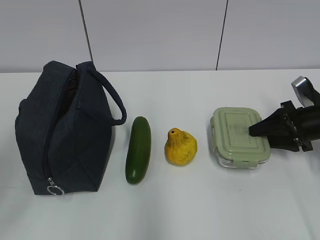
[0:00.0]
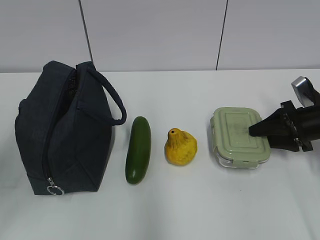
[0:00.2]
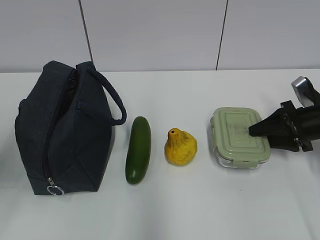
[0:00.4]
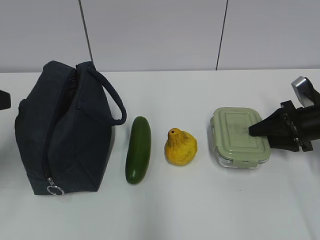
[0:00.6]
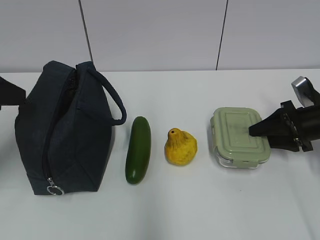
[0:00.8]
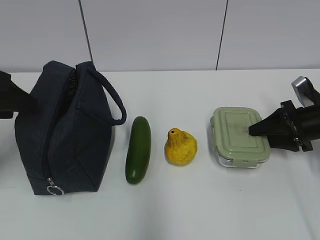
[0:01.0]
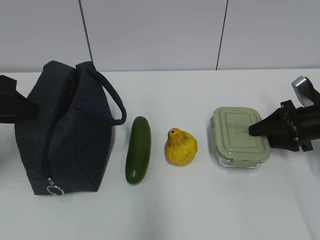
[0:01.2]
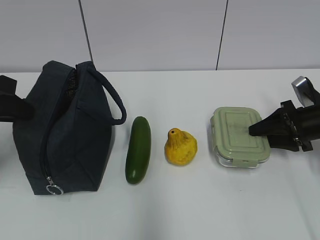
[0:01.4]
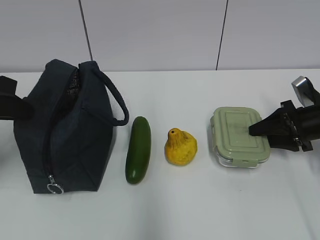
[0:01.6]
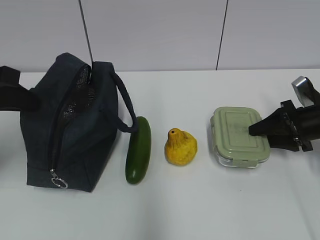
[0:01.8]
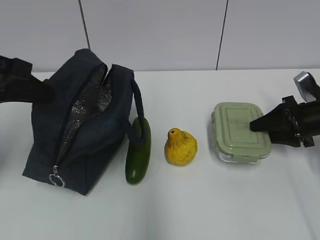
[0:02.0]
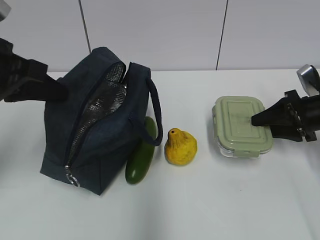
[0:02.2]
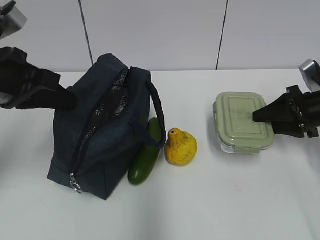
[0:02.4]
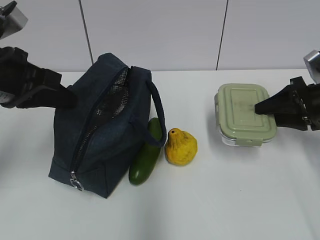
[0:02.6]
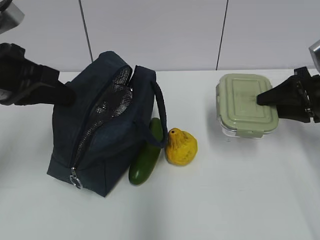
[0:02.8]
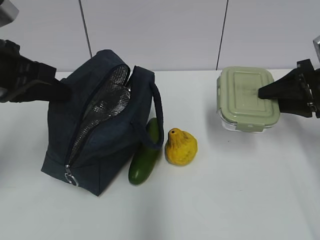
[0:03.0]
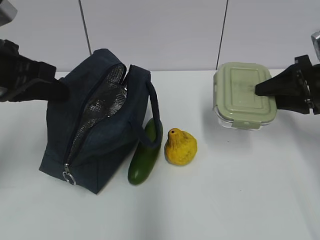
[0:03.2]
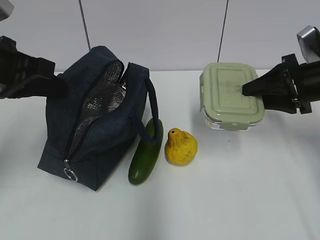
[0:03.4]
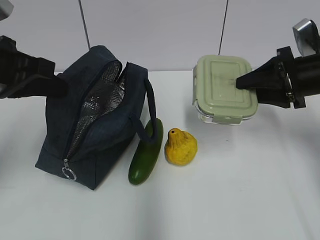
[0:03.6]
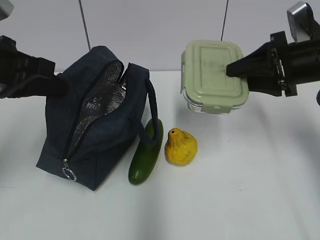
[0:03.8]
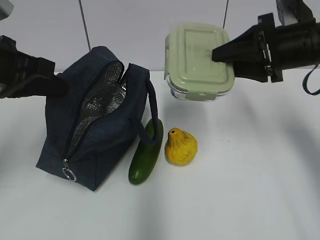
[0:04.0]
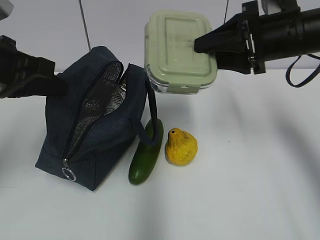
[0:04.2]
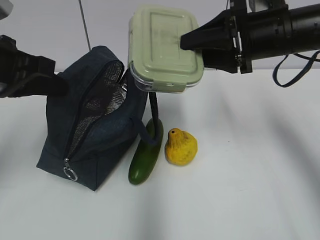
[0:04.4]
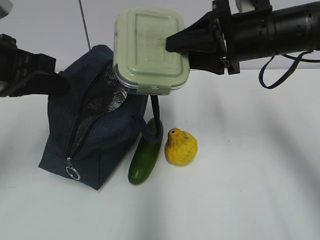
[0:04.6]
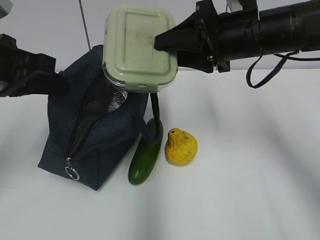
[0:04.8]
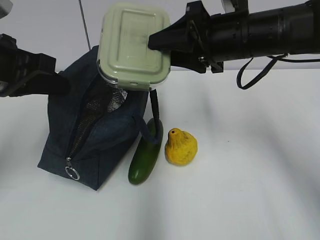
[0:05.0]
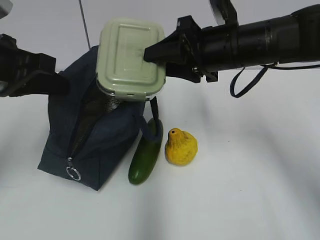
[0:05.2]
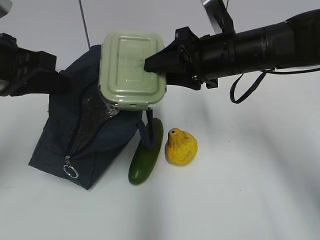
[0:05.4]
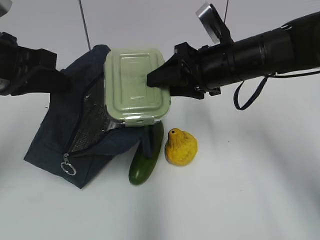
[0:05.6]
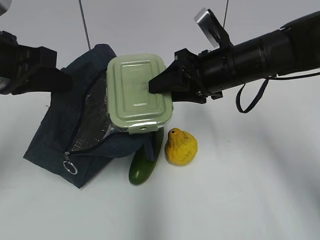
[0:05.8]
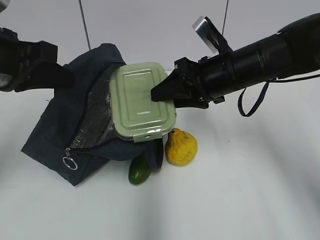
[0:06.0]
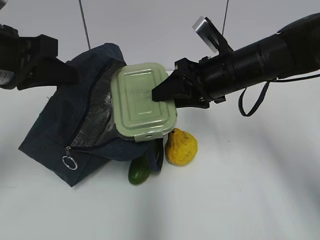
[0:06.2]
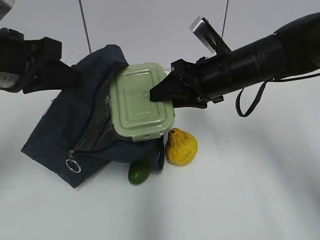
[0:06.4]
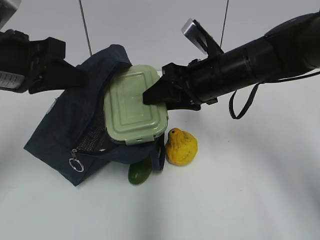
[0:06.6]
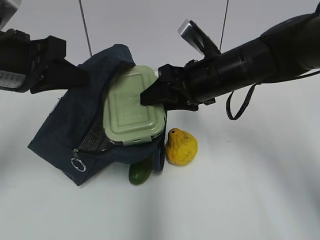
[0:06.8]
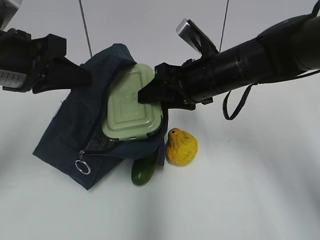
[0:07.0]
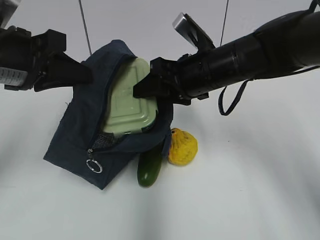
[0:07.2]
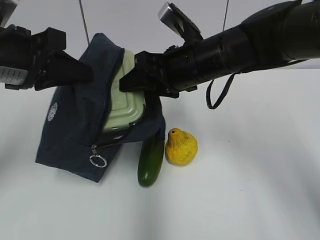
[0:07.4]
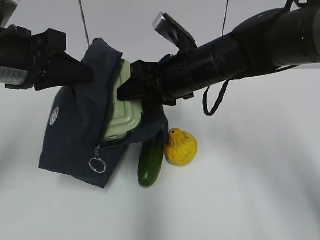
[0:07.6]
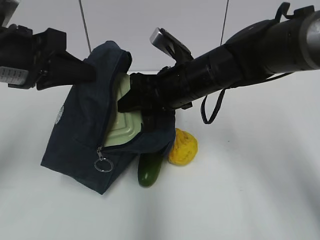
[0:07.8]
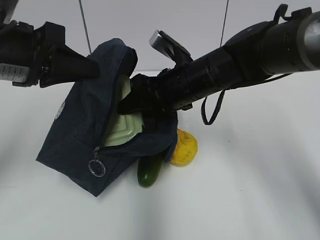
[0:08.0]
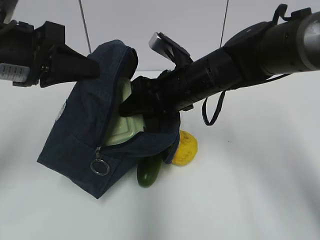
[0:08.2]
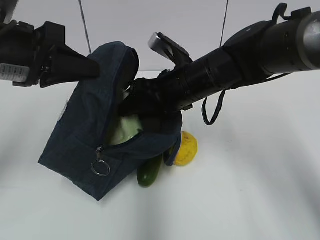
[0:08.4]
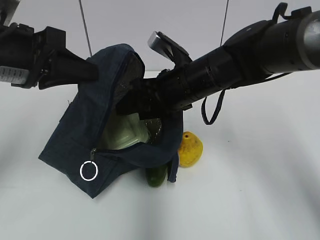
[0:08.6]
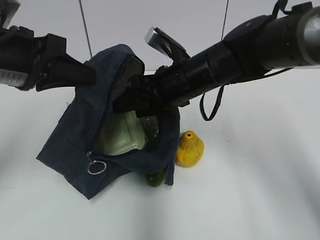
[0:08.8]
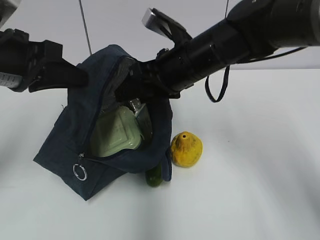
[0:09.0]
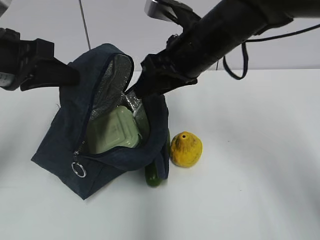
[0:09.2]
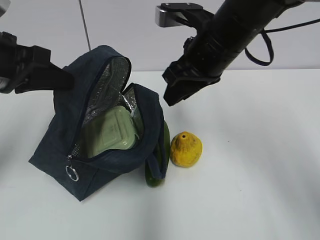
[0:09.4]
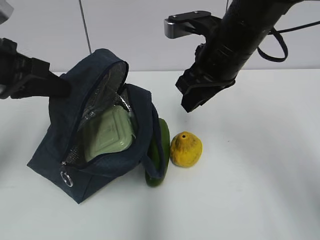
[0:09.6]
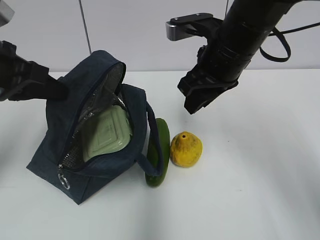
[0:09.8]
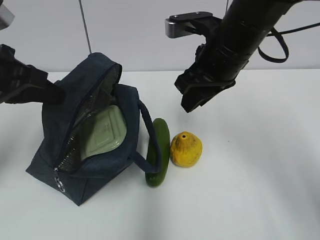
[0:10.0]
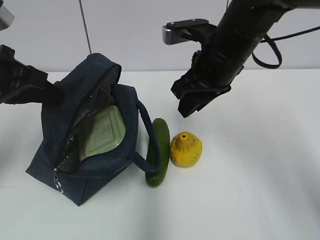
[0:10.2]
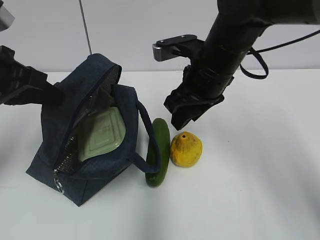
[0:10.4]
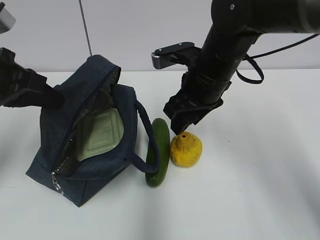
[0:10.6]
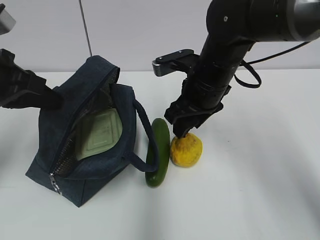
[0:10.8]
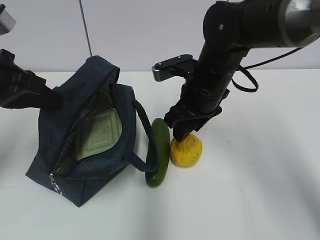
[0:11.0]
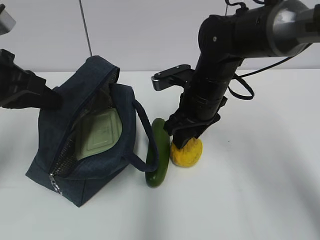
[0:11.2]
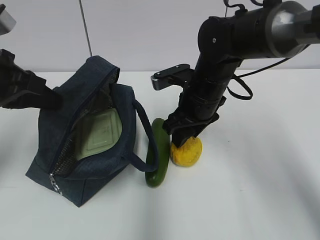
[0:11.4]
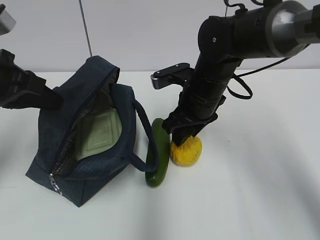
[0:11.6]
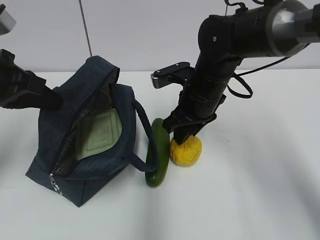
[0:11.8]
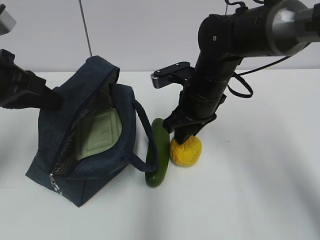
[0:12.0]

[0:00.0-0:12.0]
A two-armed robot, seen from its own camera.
0:00.0 to 0:01.6: The left gripper is displaced forward by some 15 cm, and closes its fingers.
0:01.6 to 0:03.0: The right gripper is displaced upward by approximately 10 cm. Meanwhile the left gripper shifts about 5 cm to the right.
0:03.0 to 0:04.4: The right gripper travels to the left and upward by about 15 cm.
0:04.4 to 0:06.0: The right gripper heads downward and to the left, covering about 10 cm.
0:06.0 to 0:07.6: The right gripper heads to the left, covering approximately 5 cm.
0:07.6 to 0:09.0: There are only small adjustments of the grippers.
0:10.4 to 0:12.0: The right gripper travels downward by some 5 cm.

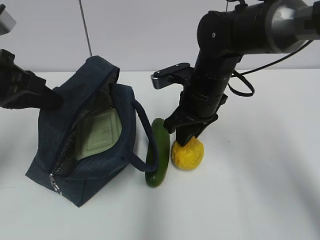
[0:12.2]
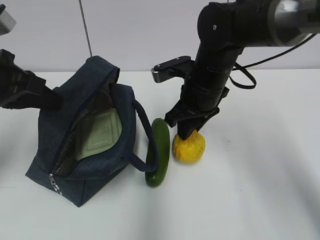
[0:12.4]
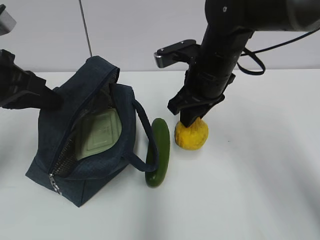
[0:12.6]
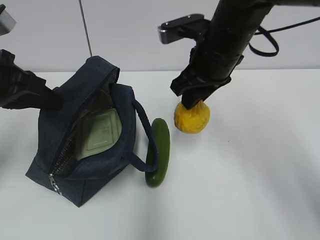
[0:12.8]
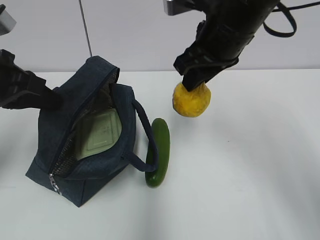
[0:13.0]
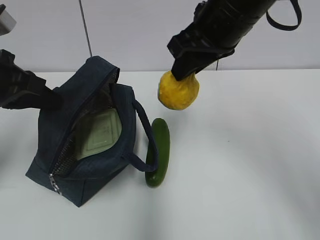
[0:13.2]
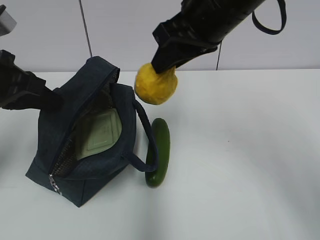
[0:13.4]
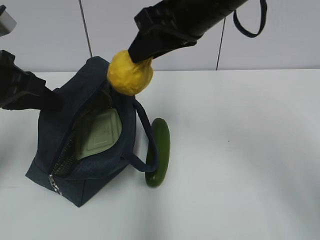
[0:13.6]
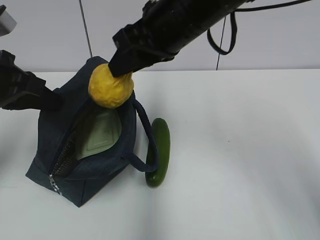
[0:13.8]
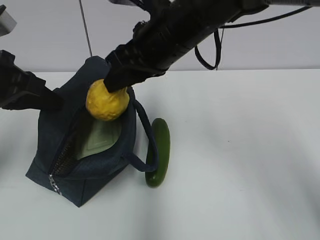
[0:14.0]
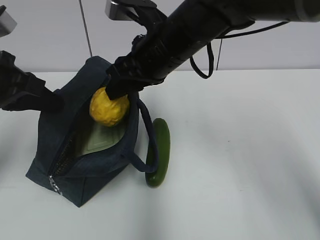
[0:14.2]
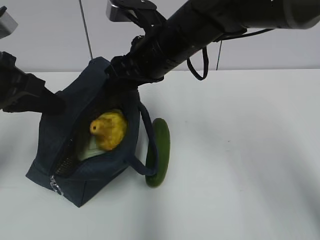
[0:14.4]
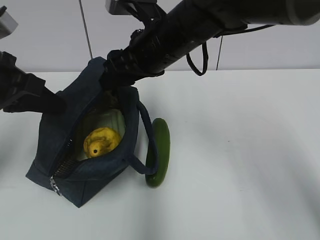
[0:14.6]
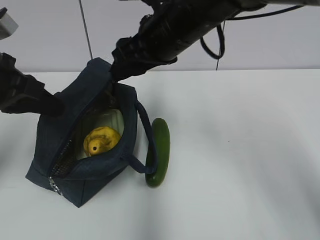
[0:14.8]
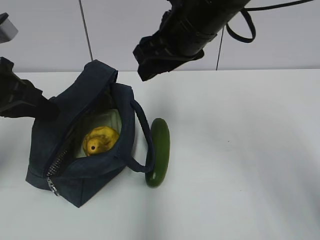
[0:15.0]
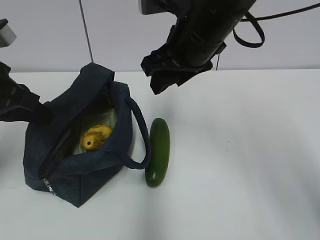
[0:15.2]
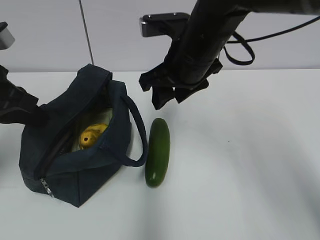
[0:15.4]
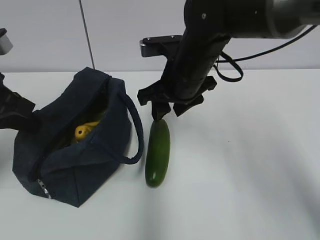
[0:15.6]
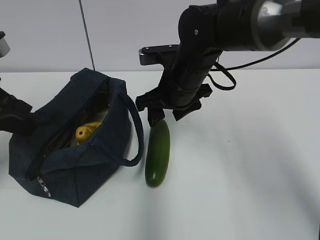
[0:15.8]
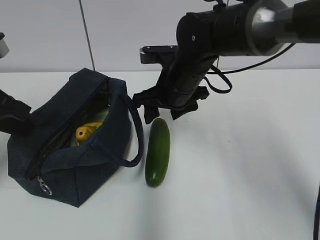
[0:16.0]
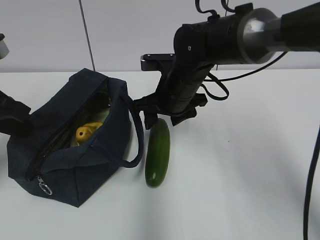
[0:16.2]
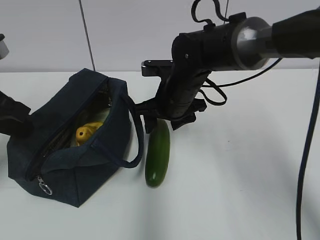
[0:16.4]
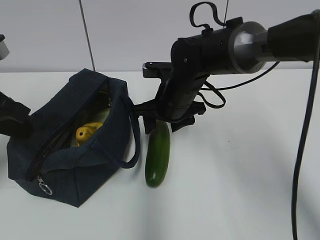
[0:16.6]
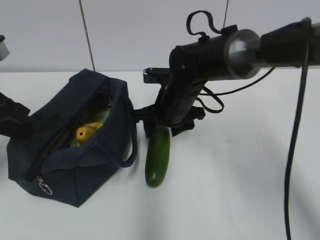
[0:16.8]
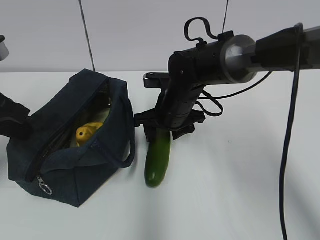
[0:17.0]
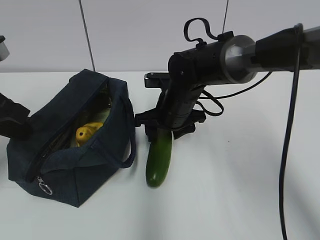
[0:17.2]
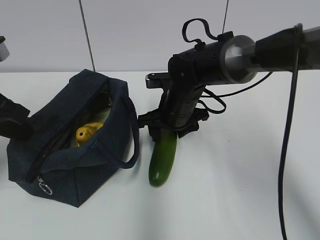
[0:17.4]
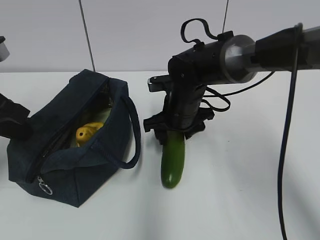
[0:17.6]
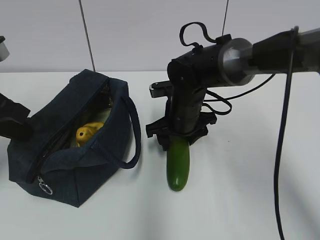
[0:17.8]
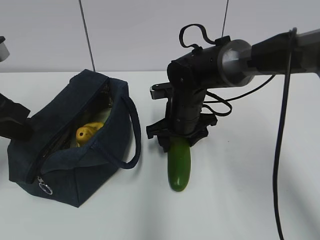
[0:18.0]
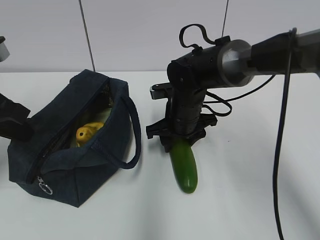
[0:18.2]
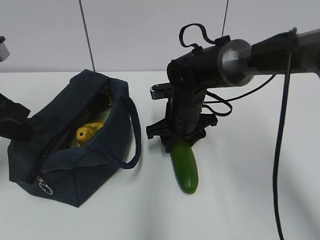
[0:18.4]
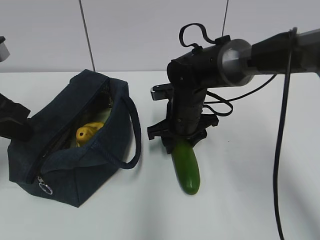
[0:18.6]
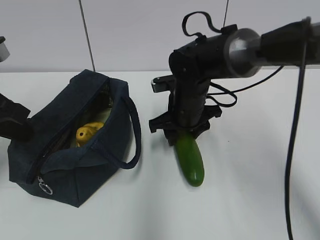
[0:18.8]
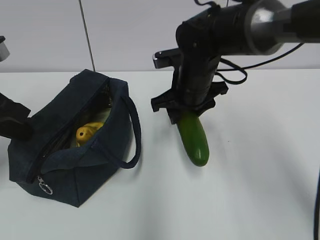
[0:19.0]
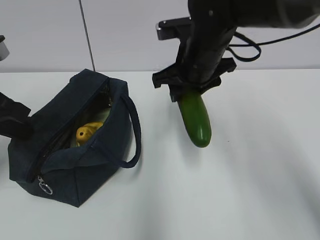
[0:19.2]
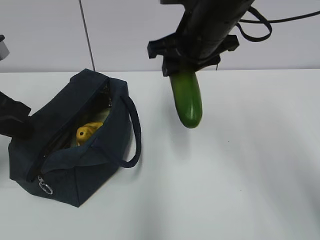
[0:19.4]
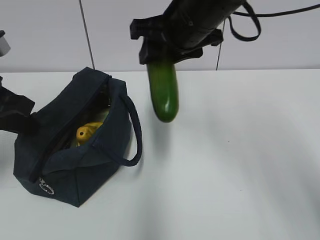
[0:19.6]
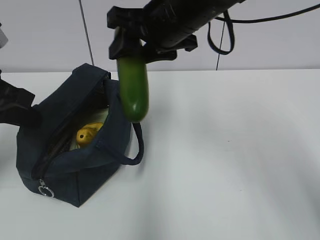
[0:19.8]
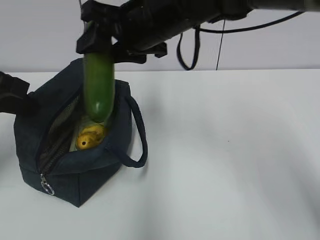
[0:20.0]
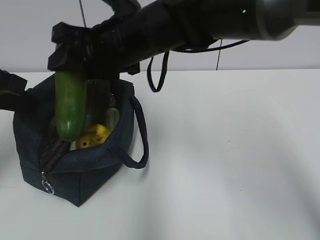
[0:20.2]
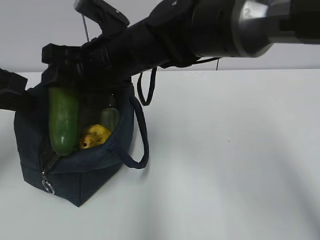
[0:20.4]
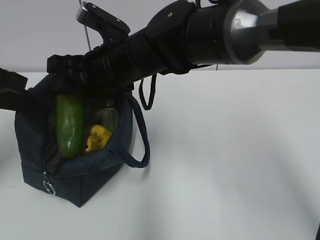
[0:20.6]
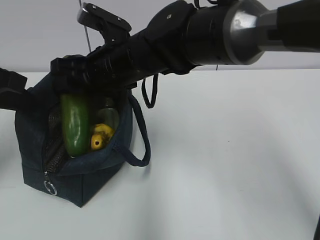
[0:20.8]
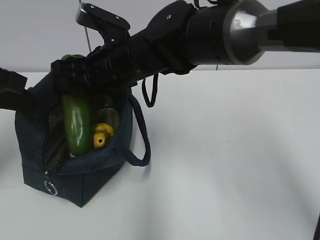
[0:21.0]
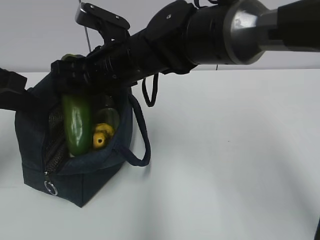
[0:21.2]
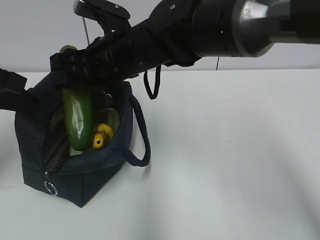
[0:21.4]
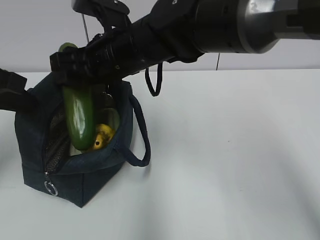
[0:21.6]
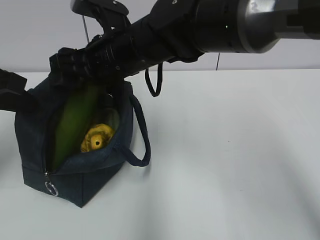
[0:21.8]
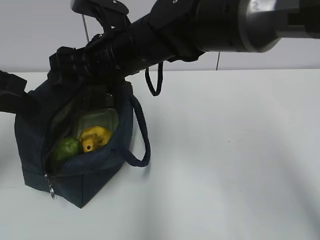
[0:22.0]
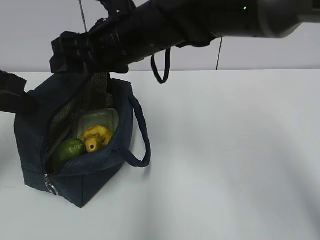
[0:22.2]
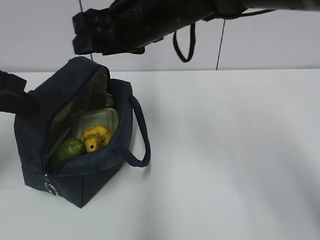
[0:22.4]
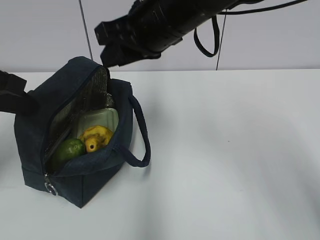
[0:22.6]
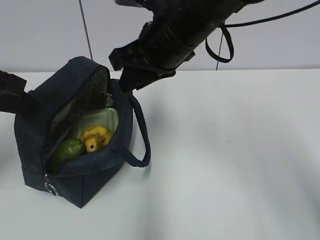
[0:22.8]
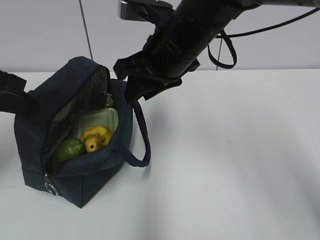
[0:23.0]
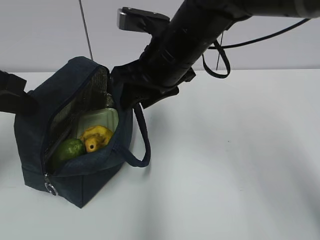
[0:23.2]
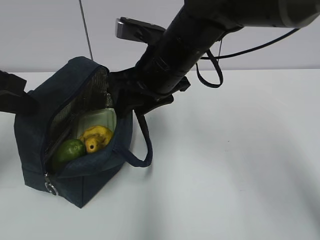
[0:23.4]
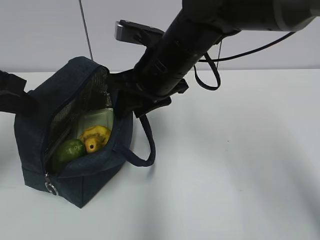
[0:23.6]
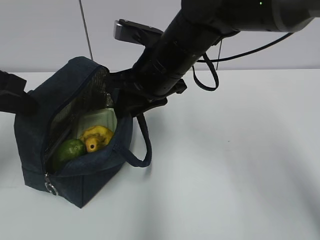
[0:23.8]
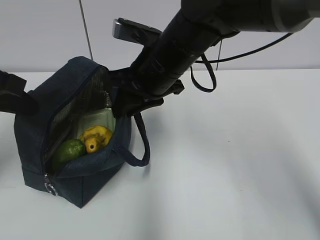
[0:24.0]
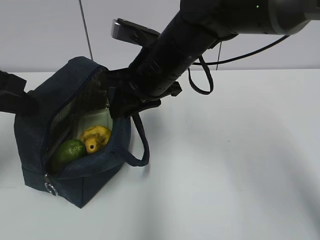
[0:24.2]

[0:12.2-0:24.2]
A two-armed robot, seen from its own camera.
0:12.2 to 0:13.8: The right gripper goes approximately 15 cm upward.
0:15.2 to 0:16.6: The right gripper shifts approximately 15 cm downward.
0:16.6 to 0:18.2: The grippers make only small movements.
0:18.2 to 0:19.8: The right gripper moves upward, roughly 20 cm.
0:19.8 to 0:21.2: The right gripper shifts approximately 10 cm to the left and downward.
0:21.2 to 0:22.6: The right gripper travels to the right and upward by some 10 cm, and closes up.
0:22.6 to 0:24.2: The right gripper heads downward, covering roughly 5 cm.
